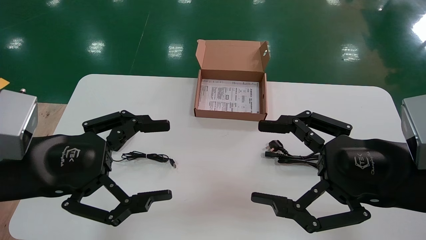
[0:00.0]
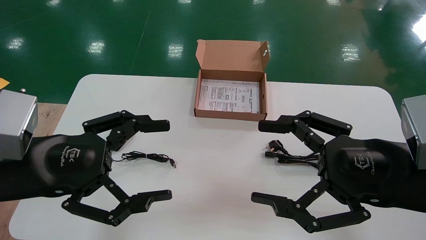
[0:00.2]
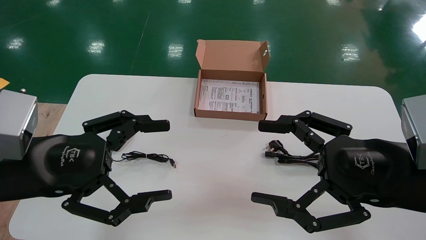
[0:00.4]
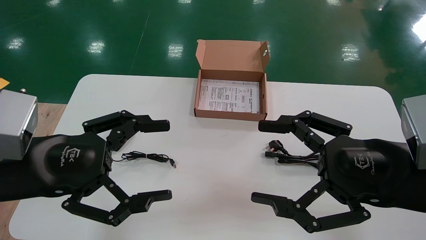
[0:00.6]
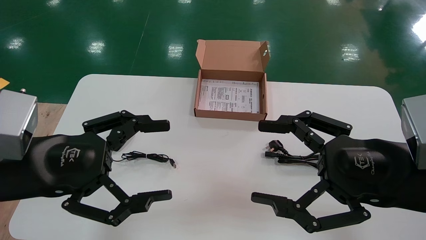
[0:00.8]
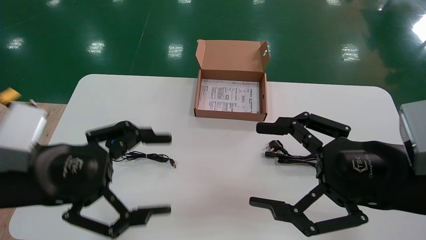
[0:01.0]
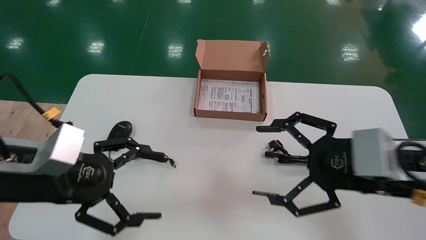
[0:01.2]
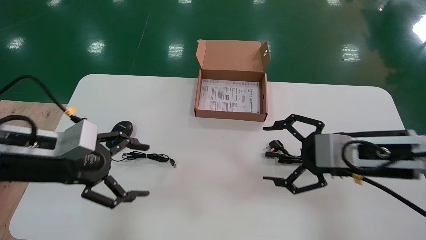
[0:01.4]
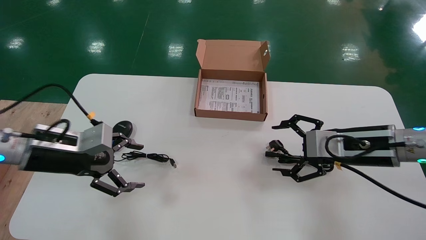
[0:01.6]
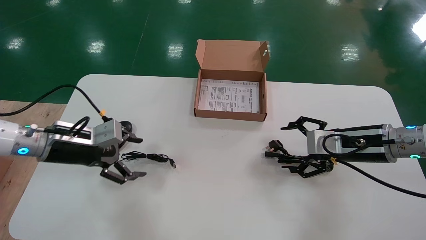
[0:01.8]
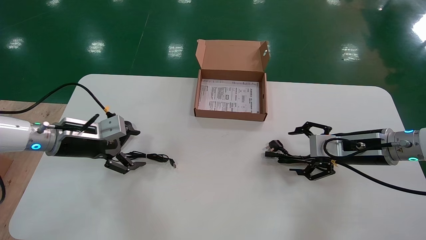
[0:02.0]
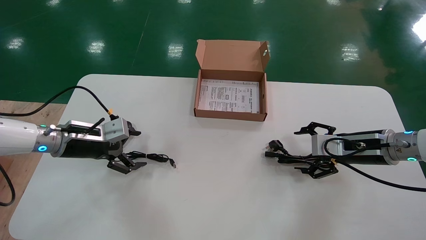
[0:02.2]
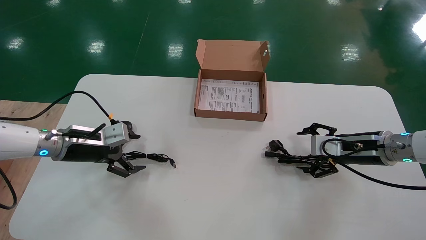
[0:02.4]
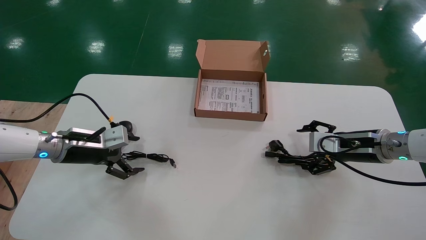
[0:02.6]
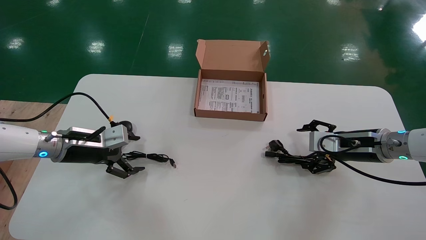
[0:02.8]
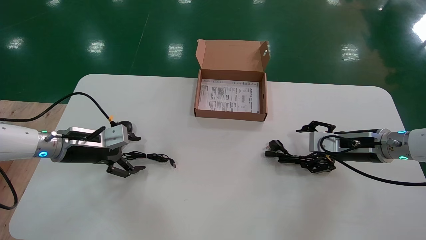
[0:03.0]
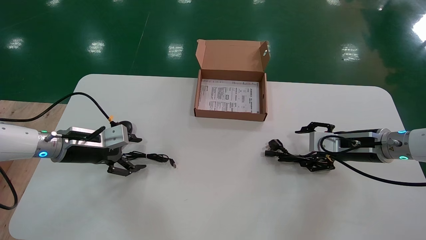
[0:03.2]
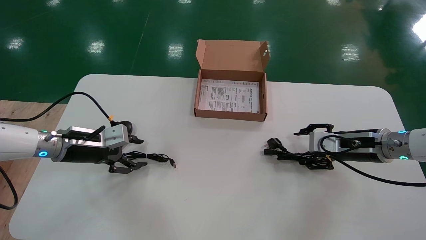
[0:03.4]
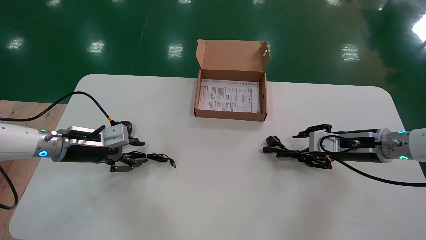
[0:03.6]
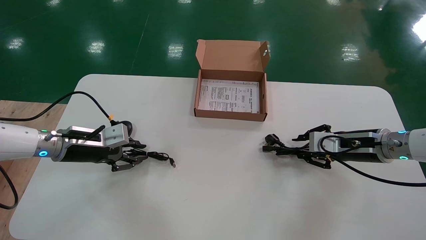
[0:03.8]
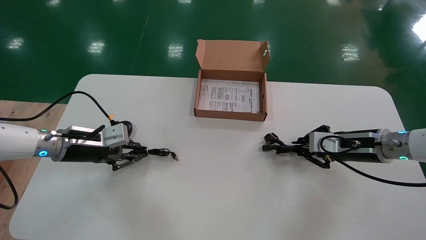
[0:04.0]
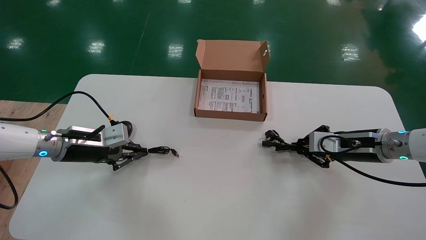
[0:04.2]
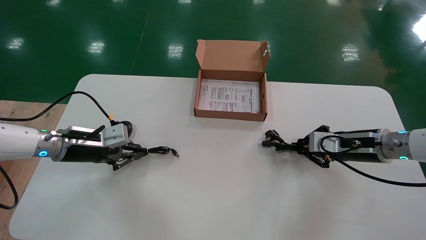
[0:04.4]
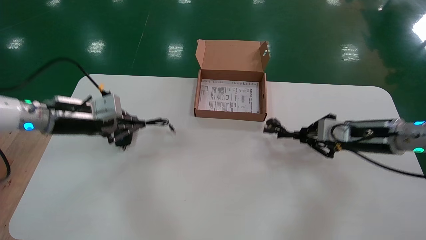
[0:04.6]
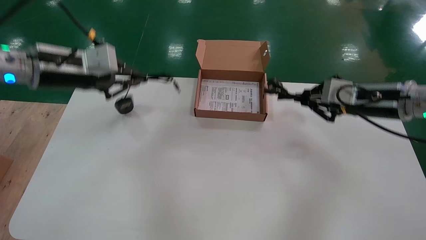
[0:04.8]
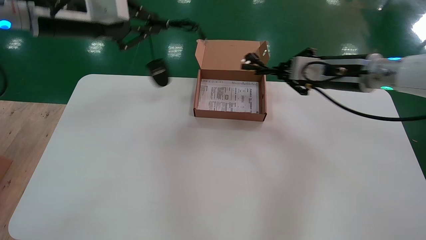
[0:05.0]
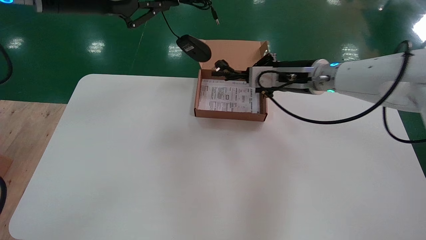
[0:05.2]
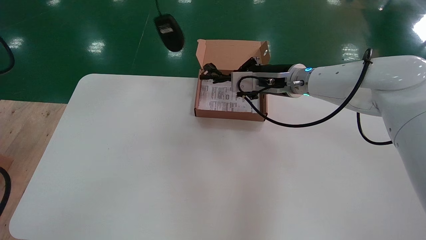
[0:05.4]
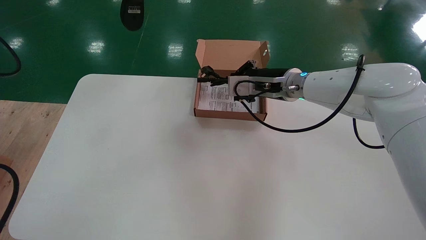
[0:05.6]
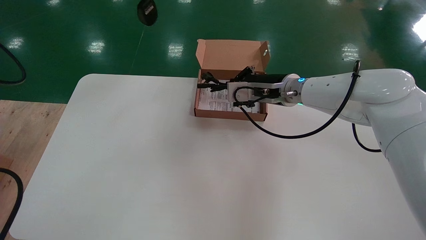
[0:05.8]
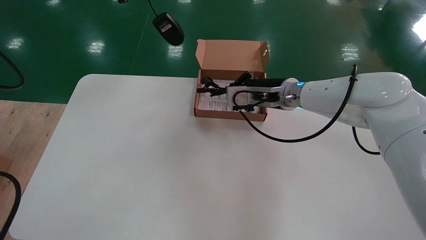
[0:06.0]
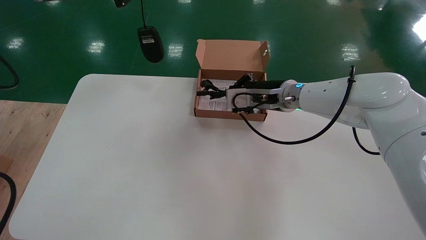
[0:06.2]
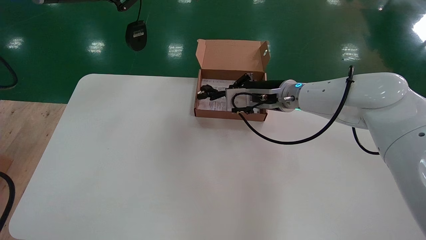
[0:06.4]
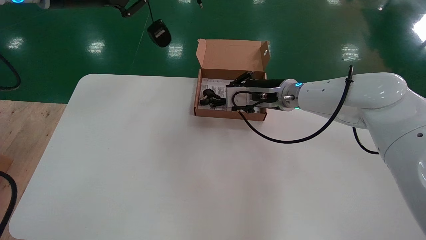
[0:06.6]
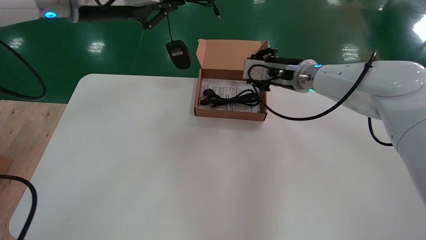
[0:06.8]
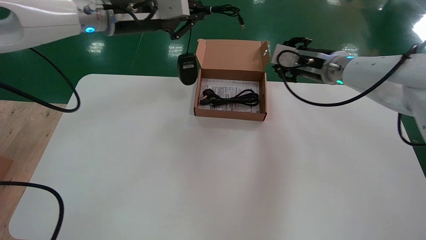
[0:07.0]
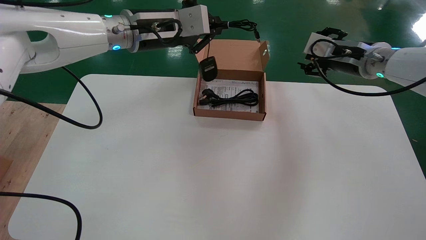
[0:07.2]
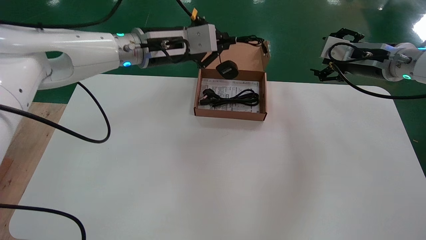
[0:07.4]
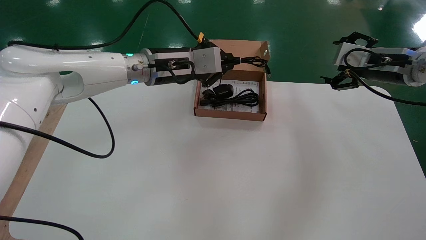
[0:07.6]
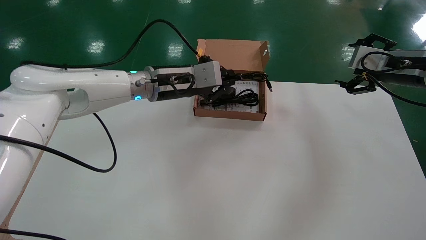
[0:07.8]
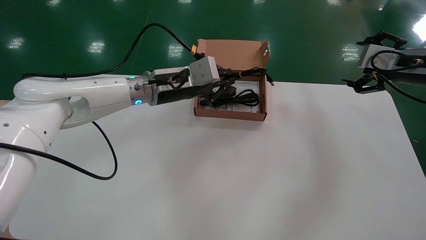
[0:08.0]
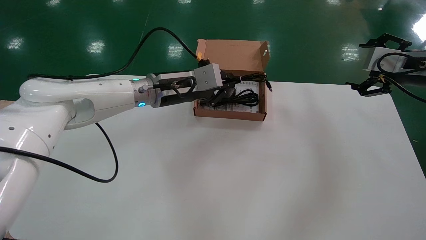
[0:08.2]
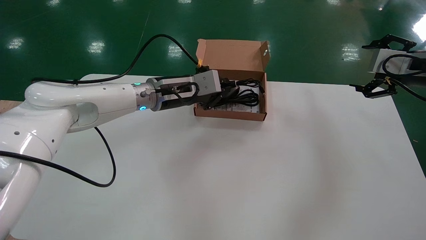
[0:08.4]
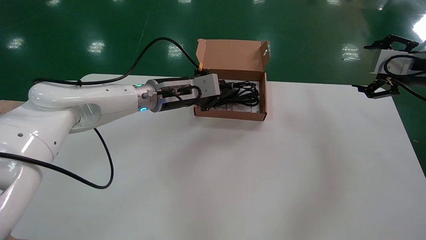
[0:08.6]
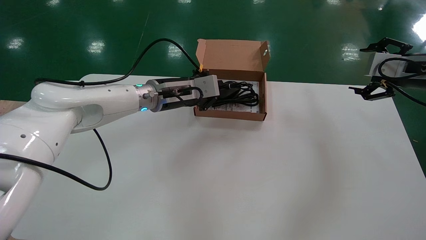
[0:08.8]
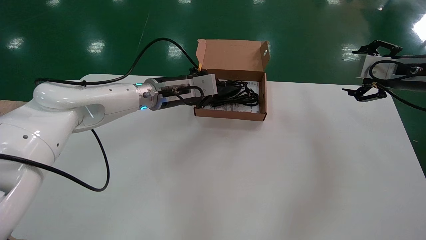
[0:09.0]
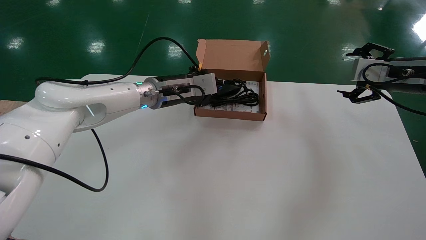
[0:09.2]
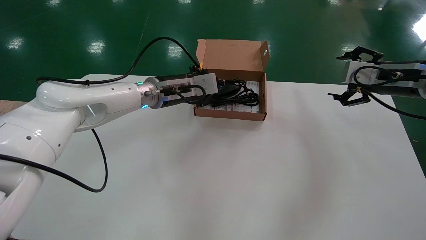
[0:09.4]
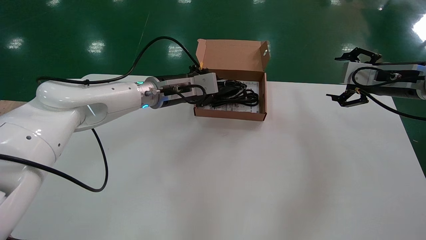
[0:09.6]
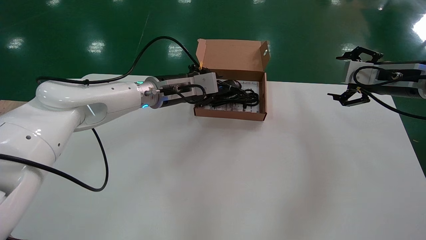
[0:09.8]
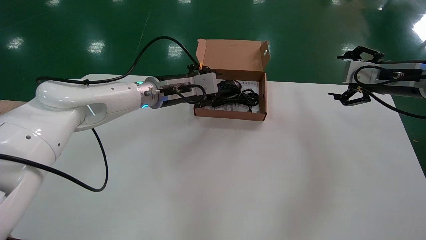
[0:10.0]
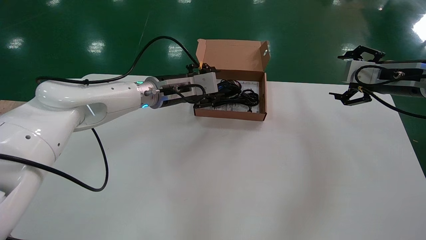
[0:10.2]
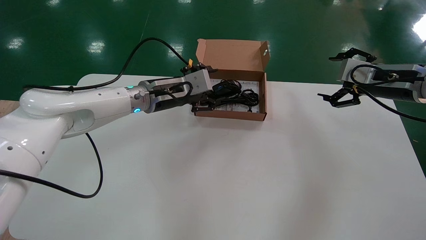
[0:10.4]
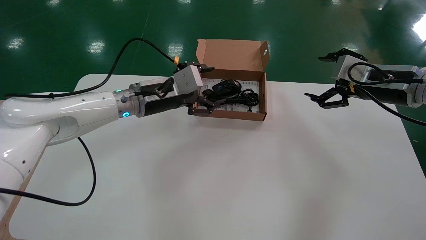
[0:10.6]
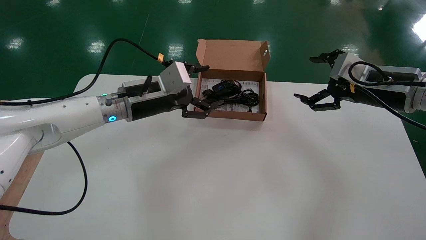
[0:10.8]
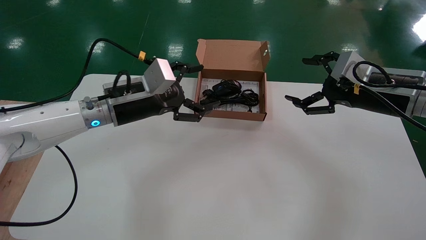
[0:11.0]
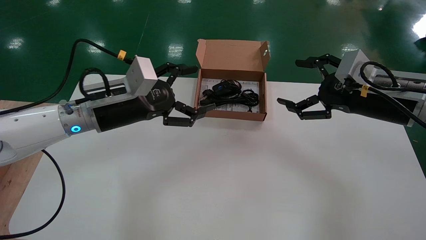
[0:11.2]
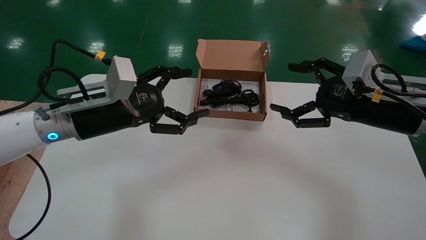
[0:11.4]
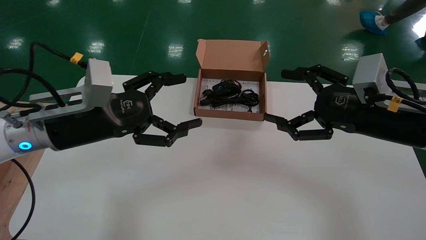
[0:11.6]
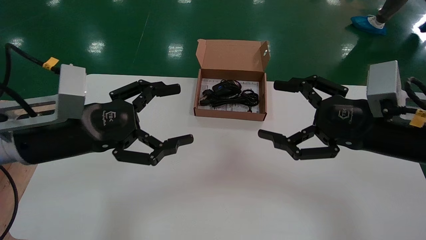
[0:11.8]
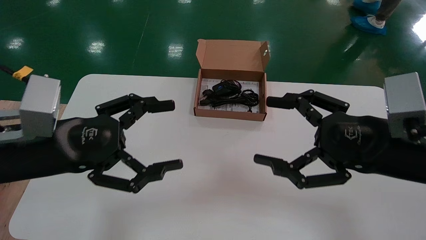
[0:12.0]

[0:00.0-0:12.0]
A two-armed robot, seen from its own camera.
Step, 0:01.0 to 0:04.6: Simultaneously pick up the mouse and power cord from the accessory packaging area.
Step, 0:04.8 to 0:09.8: Place the mouse and power cord into the box.
0:00.0 to 0:01.6: The grippers both shift forward by some 15 cm.
0:01.6 to 0:03.0: The two grippers go some 5 cm forward.
0:03.0 to 0:04.4: The right gripper closes up, while the left gripper closes its fingers.
0:04.4 to 0:06.0: The left gripper shifts approximately 30 cm upward. Meanwhile the right gripper heads to the left, covering about 20 cm.
0:06.0 to 0:07.6: The left gripper shifts about 20 cm downward and to the right. The right gripper is displaced to the right by roughly 20 cm, and opens.
0:07.6 to 0:09.0: The right gripper moves about 5 cm; the left gripper moves downward, approximately 5 cm.
0:09.0 to 0:10.4: The left gripper opens up.
0:10.4 to 0:12.0: Both grippers travel together backward and to the left, roughly 25 cm. The left gripper opens up.

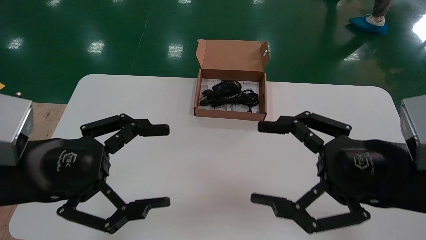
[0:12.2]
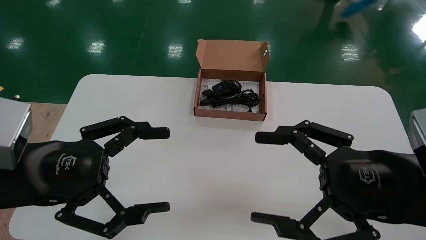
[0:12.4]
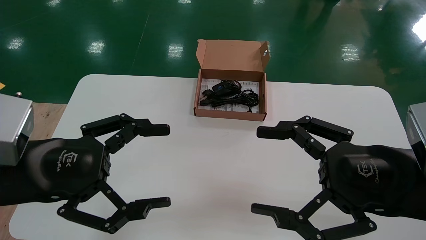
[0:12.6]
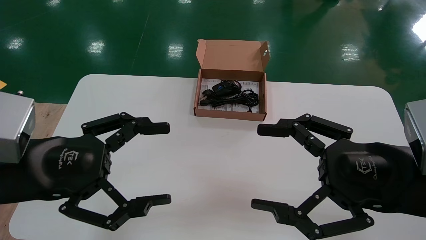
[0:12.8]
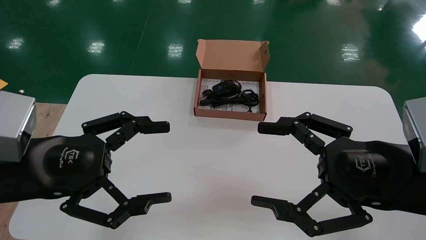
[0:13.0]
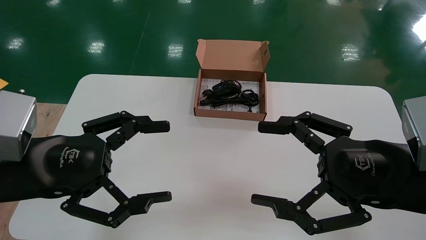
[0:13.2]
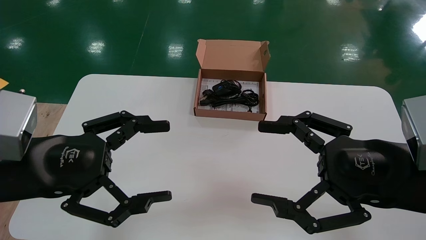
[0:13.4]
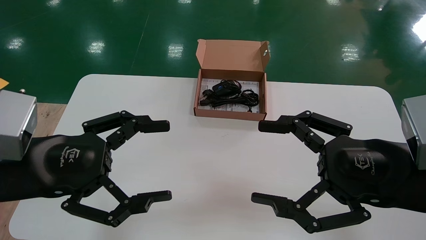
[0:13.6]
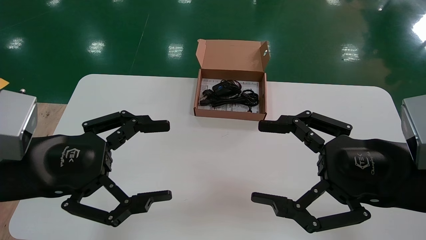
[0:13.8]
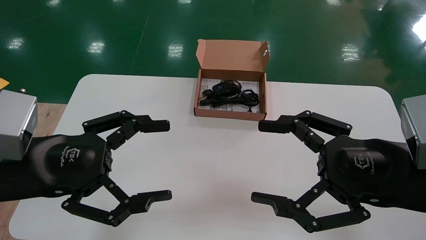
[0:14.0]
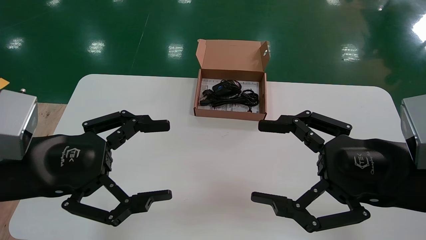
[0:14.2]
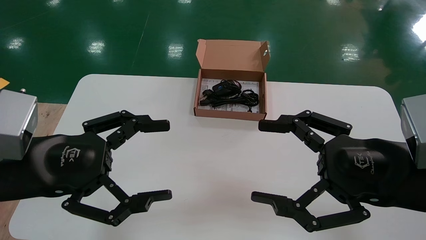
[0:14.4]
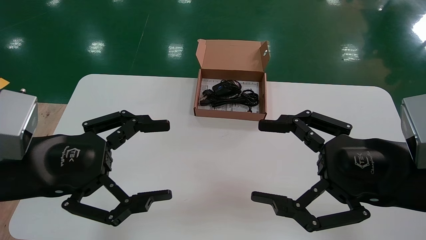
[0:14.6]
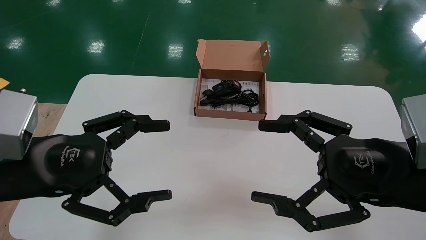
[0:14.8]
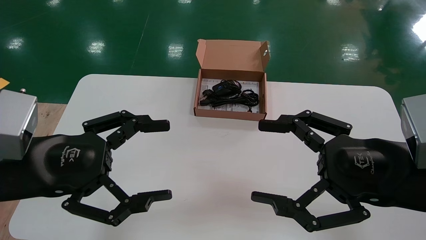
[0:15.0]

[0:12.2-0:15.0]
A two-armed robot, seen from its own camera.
0:12.2 to 0:13.6: The grippers make only small movements.
0:13.6 to 0:15.0: Neither gripper changes place.
